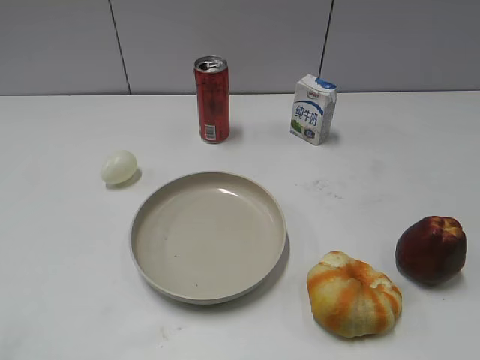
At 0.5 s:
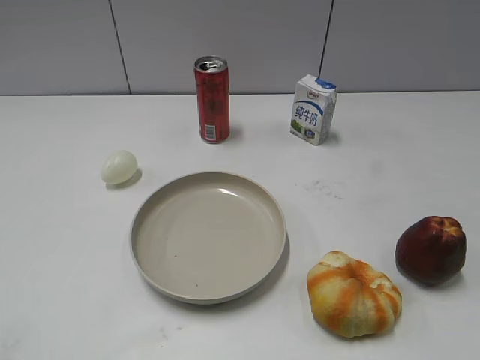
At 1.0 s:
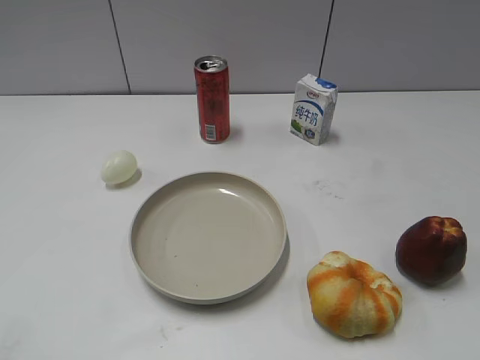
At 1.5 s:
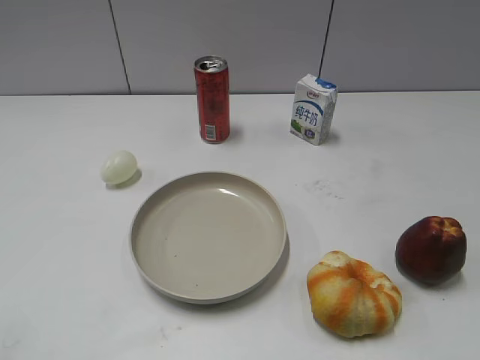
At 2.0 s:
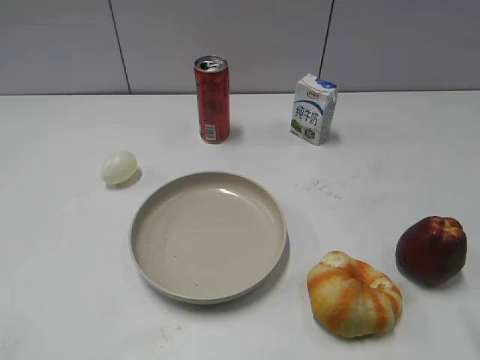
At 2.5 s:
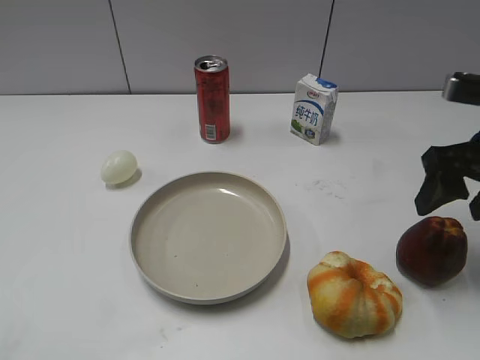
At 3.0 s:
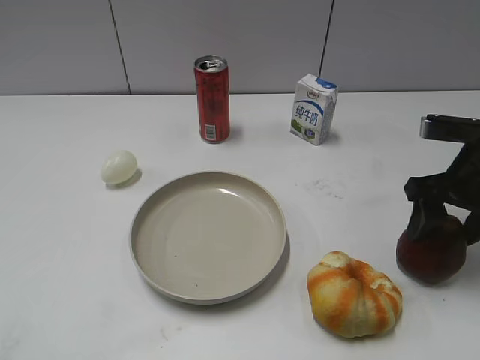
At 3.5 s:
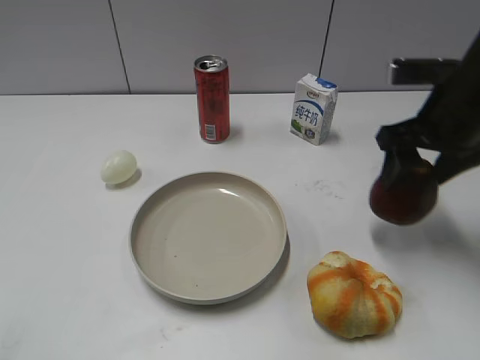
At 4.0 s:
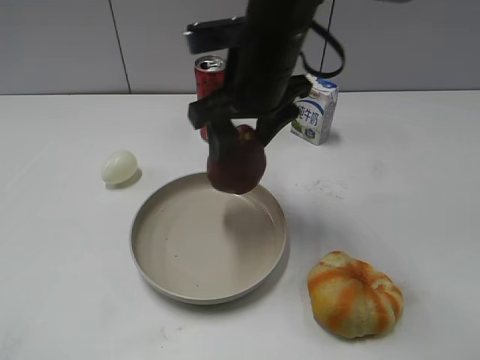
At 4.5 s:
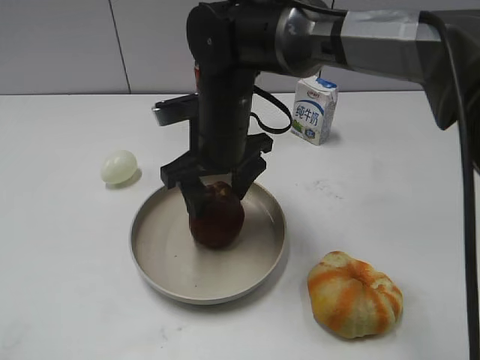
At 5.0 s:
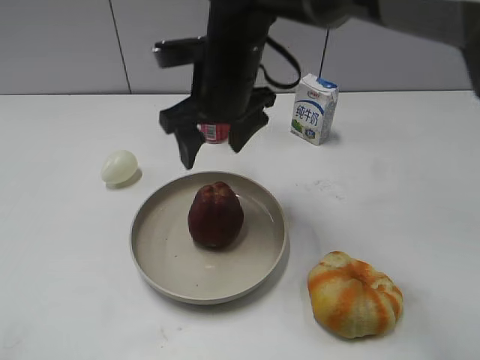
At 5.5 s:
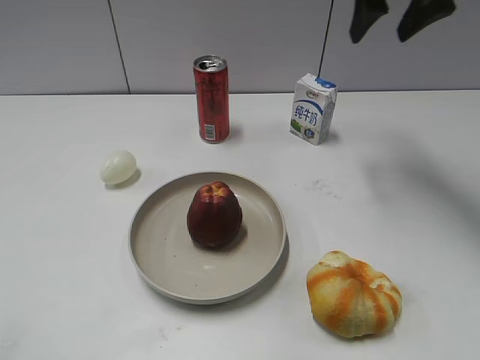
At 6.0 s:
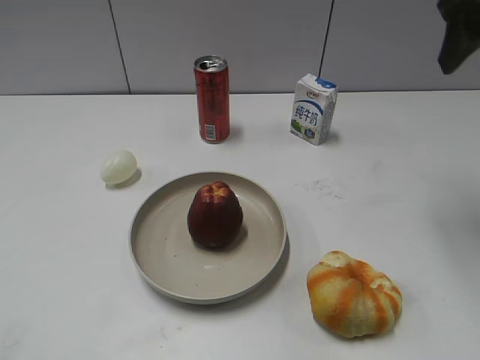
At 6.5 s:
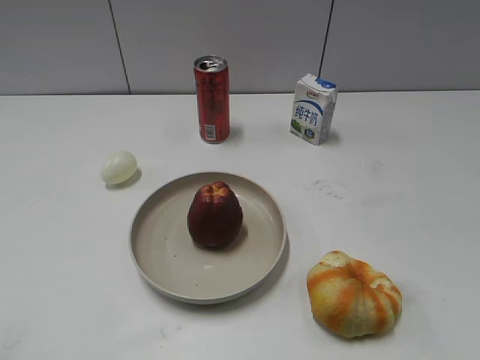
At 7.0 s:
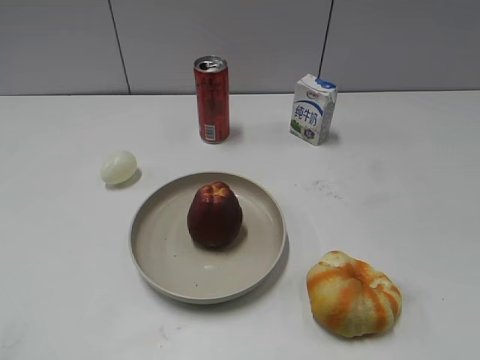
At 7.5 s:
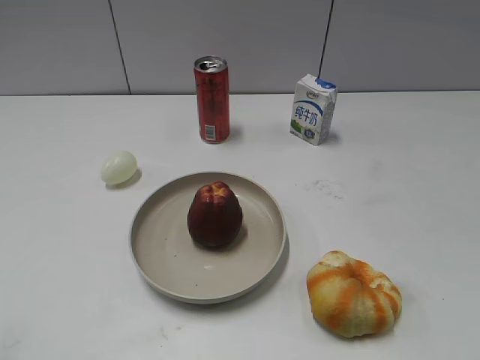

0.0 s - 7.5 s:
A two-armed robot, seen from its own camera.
Step, 1.5 s - 3.0 s: Grasp the apple with right gripper.
Step, 3.5 s - 4.5 s: Place the apple on the plate with right gripper.
2.0 s - 4.0 s: The right gripper is displaced to the left and forward by roughly 35 cm.
4.0 s - 5.5 s: The right gripper travels to the right, upward and forward by roughly 20 cm, and opens, then closes again.
5.5 s - 7.5 s: The right gripper goes approximately 40 cm backward.

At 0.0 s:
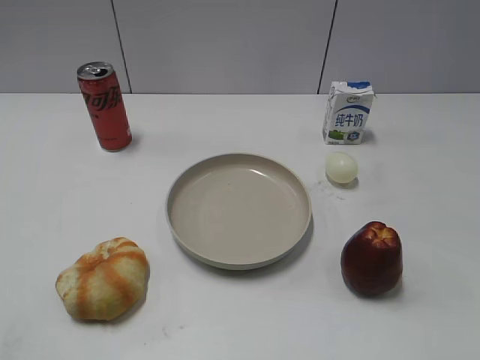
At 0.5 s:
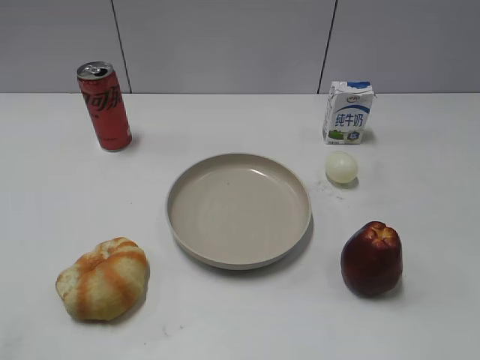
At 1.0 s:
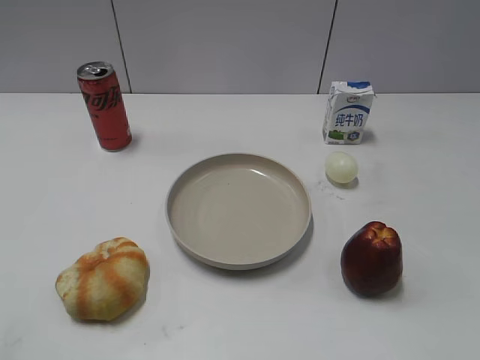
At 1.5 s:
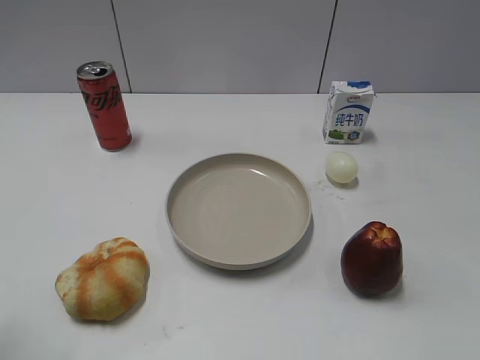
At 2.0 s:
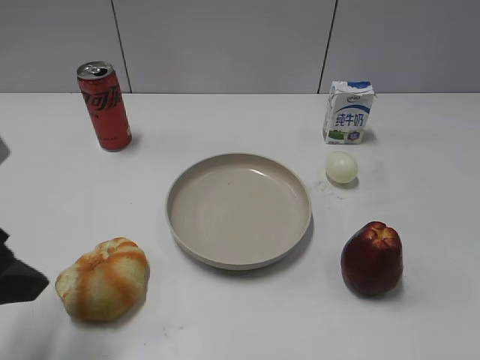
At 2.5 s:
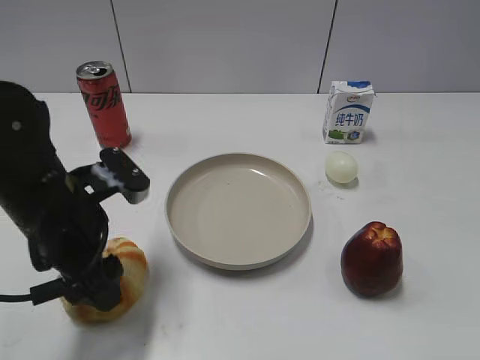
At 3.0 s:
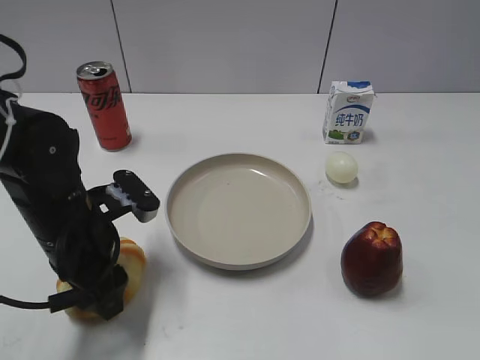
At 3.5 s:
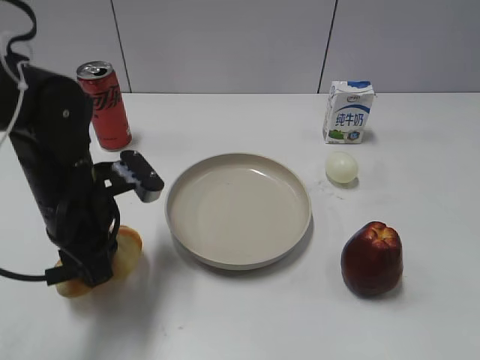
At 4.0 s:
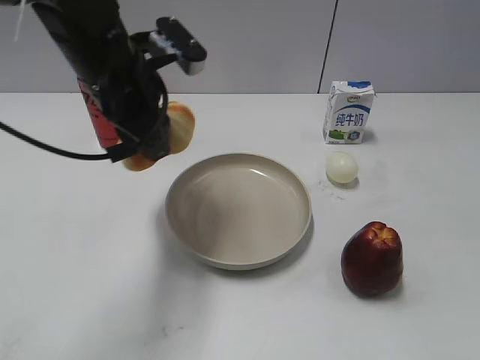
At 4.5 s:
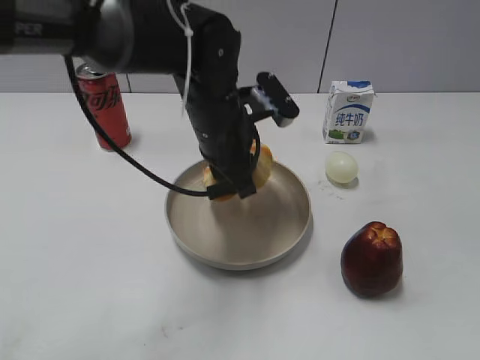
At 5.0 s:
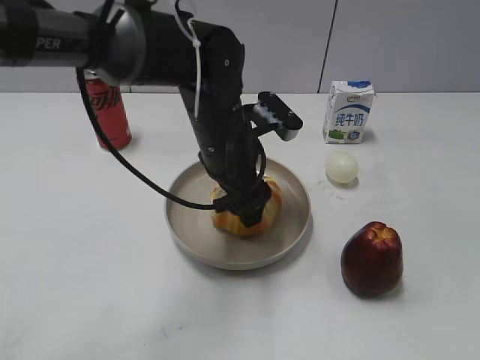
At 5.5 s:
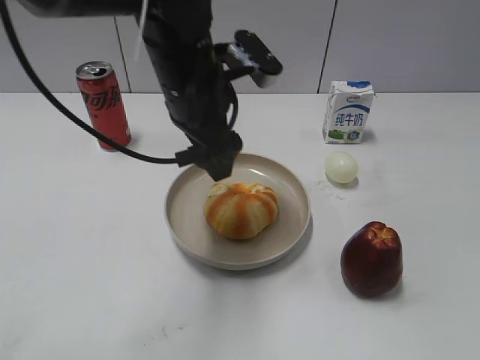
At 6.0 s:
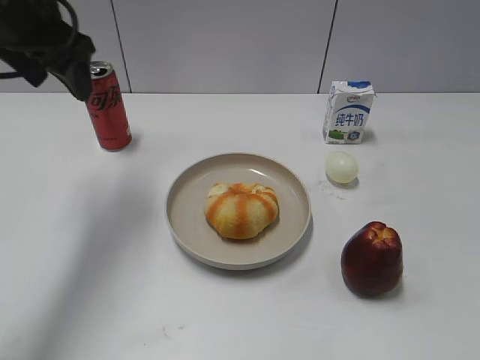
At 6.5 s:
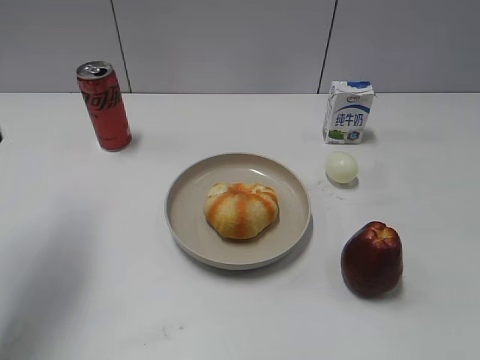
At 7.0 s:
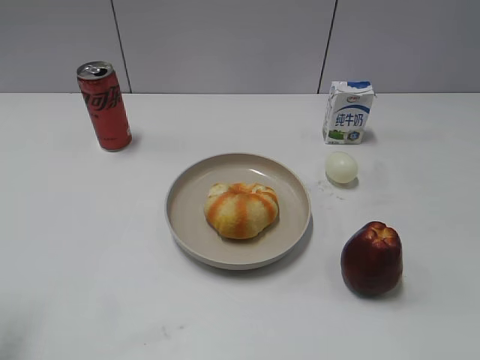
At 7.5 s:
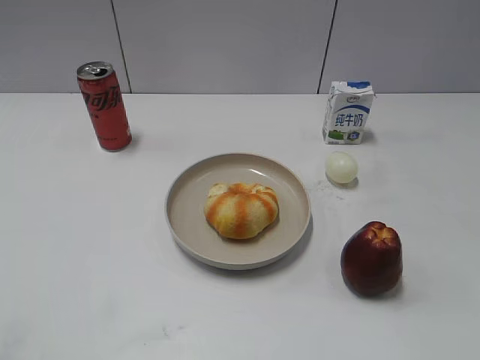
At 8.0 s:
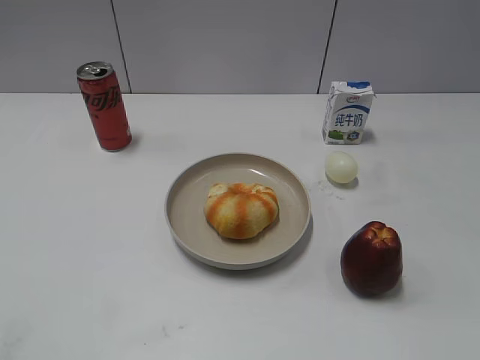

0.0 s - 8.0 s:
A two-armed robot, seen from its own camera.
Step, 1.0 s - 3.0 s: Grasp the round bread with left gripper.
Step, 3.5 s - 5.5 s: Place the round bread on the plate with left gripper.
2.0 s - 4.0 s: The left gripper heads forward and to the right, covering roughly 20 cm, and closes up.
4.0 s - 6.0 s: The left gripper travels to the left, upward and forward by roughly 15 cm, and opens.
6.0 s - 8.0 s: The left gripper shifts about 35 cm backward.
